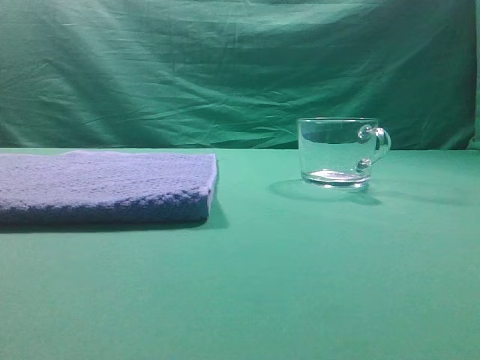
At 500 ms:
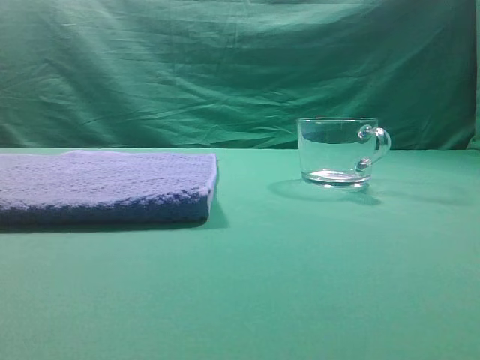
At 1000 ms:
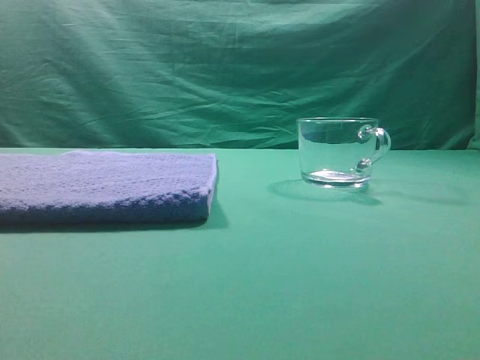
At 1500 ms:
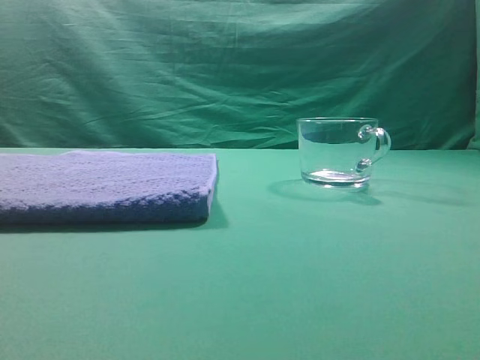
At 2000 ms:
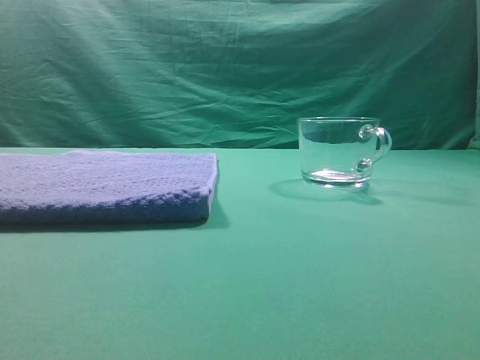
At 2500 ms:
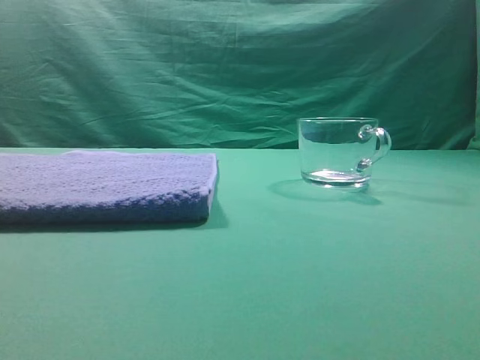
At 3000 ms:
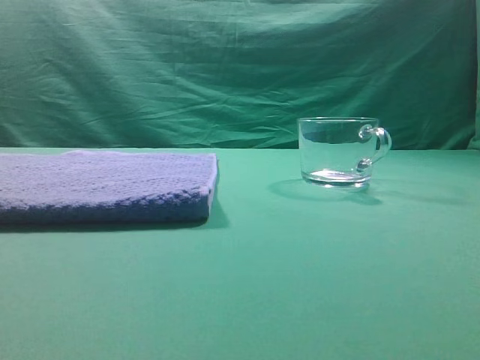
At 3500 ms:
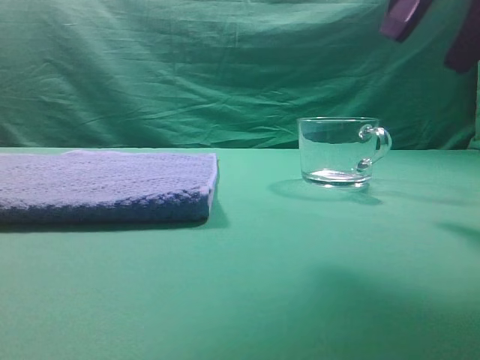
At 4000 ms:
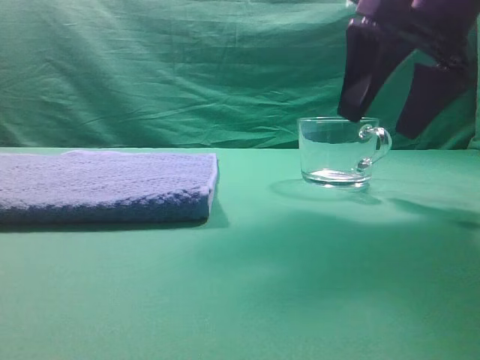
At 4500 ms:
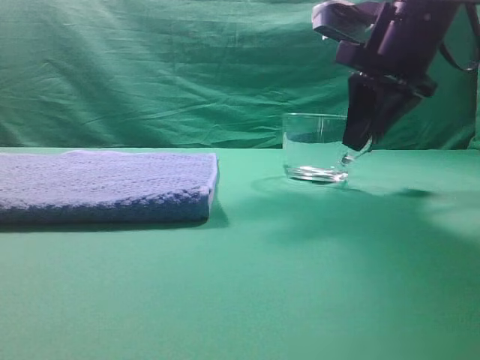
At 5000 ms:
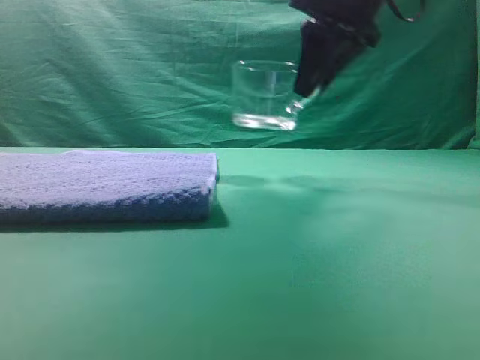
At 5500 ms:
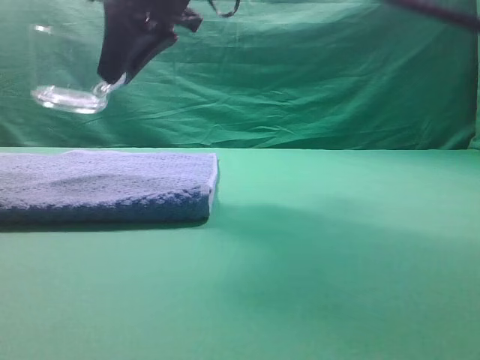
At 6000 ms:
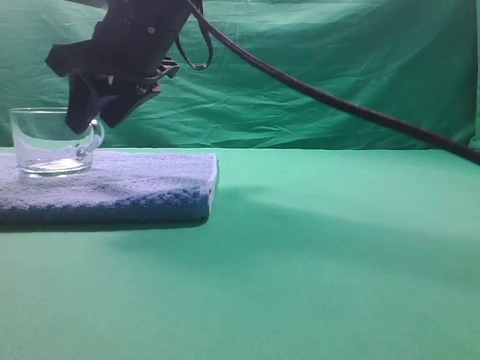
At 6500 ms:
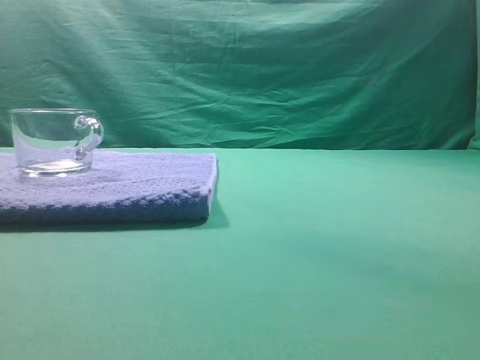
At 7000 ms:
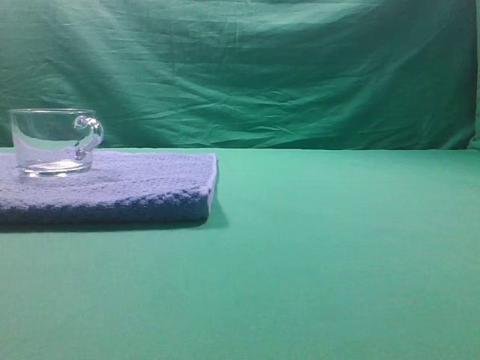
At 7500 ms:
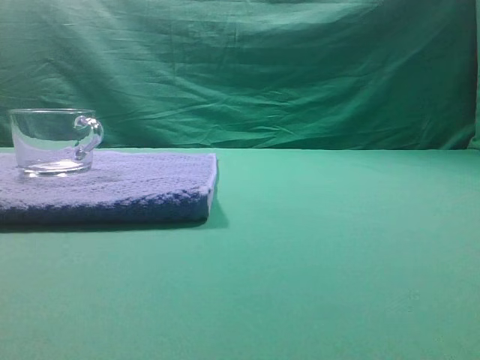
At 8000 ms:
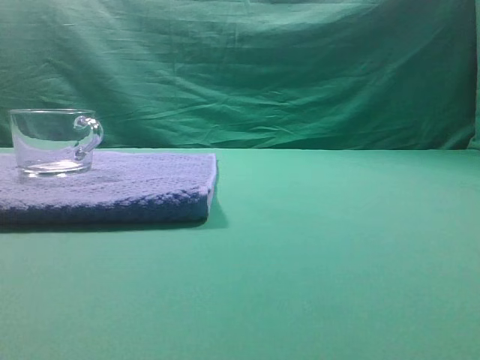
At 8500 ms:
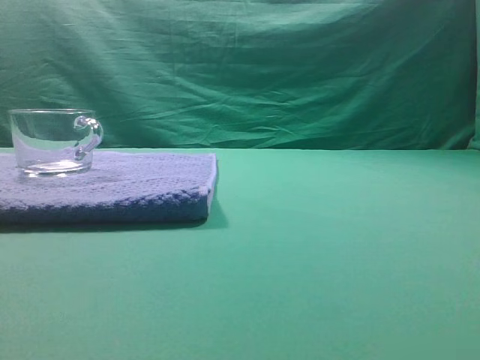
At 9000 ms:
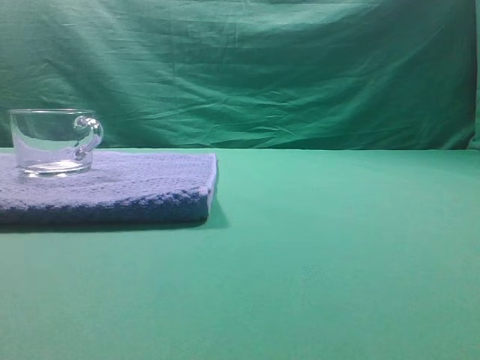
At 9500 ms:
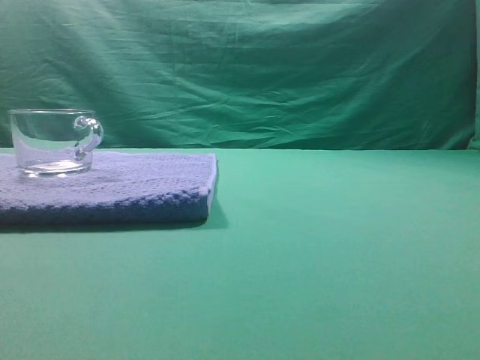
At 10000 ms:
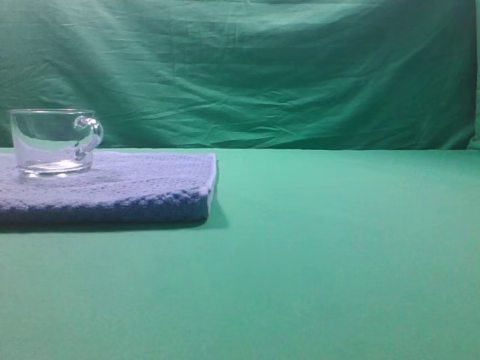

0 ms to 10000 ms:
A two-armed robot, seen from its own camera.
Task of the whole recording: grasp the transparent glass cup and place it within the blue towel.
Step, 0 ms to 4500 ms: Grasp the transparent glass cup.
Step, 5000 ms to 6000 ms: Place the glass cup on the blue zone.

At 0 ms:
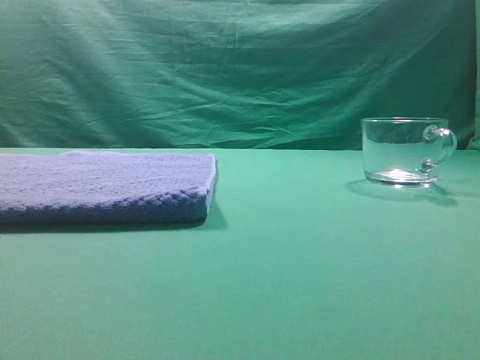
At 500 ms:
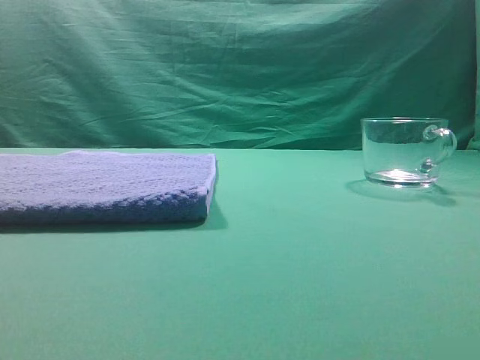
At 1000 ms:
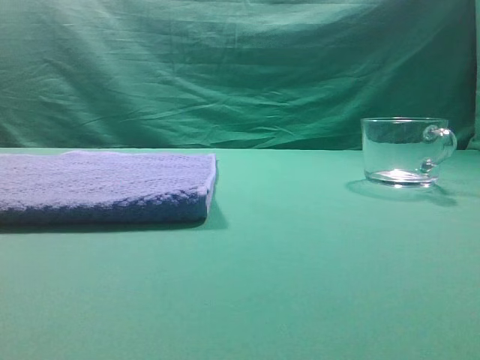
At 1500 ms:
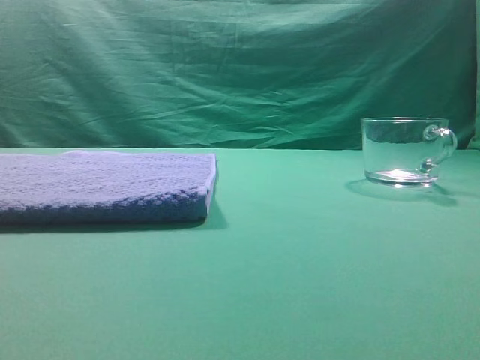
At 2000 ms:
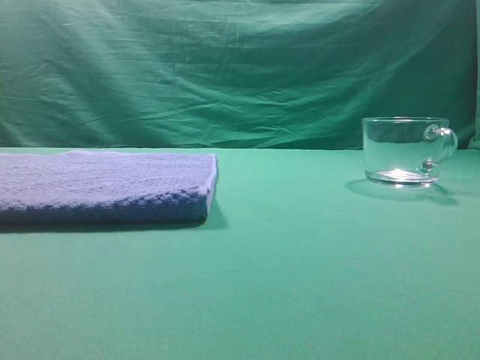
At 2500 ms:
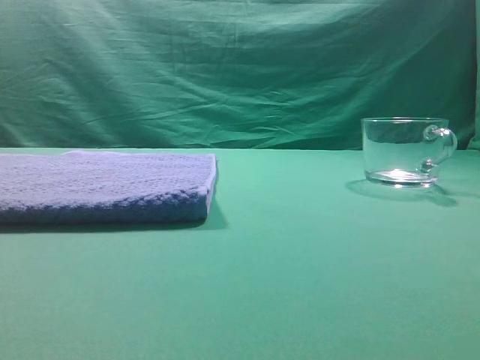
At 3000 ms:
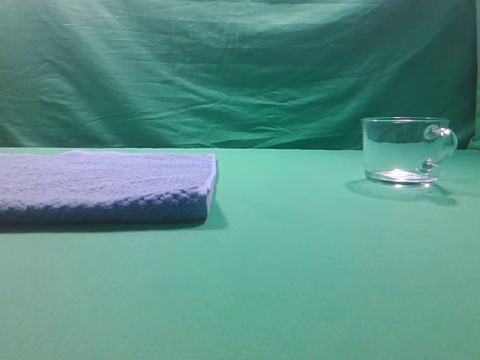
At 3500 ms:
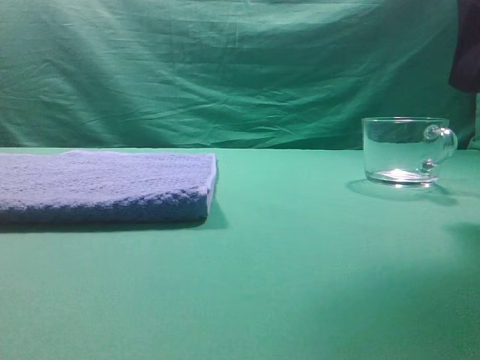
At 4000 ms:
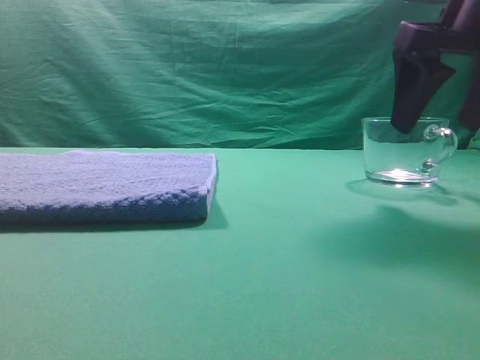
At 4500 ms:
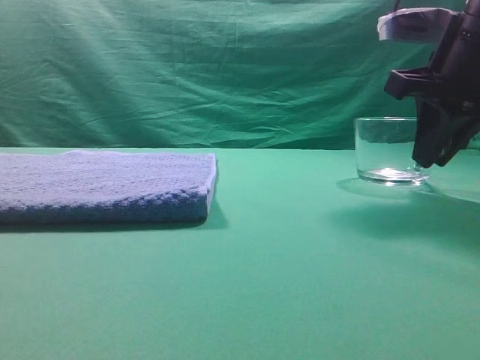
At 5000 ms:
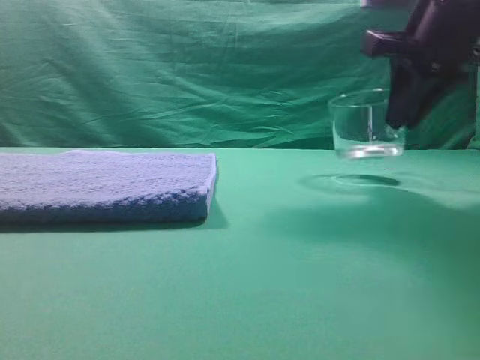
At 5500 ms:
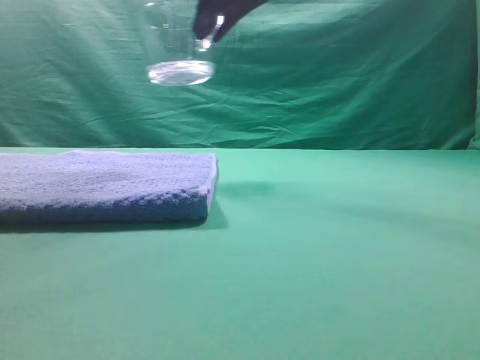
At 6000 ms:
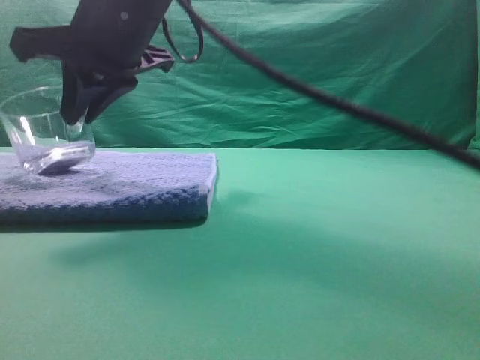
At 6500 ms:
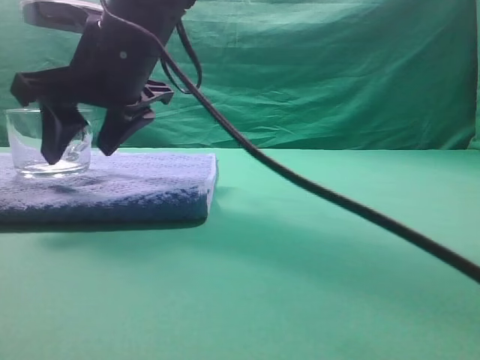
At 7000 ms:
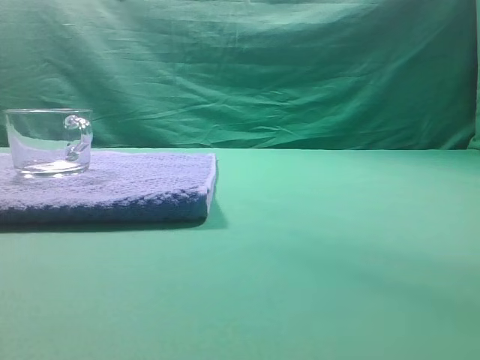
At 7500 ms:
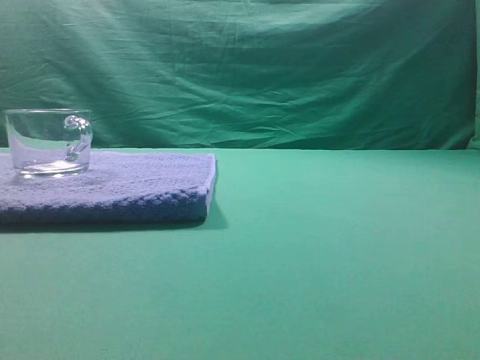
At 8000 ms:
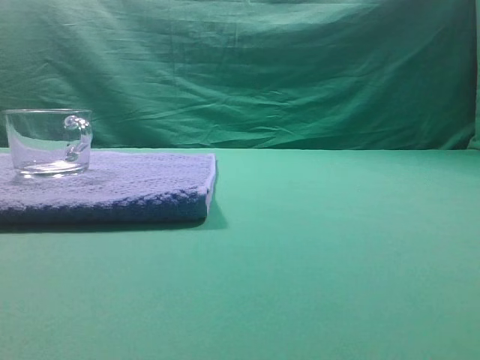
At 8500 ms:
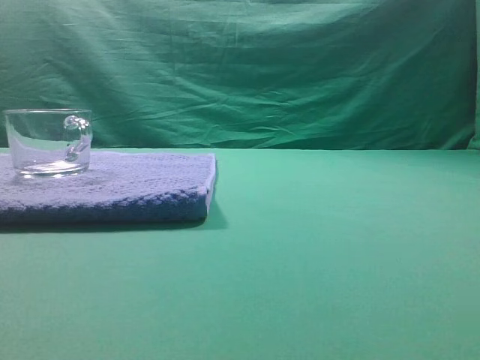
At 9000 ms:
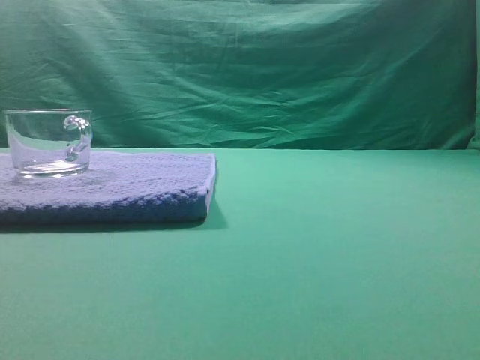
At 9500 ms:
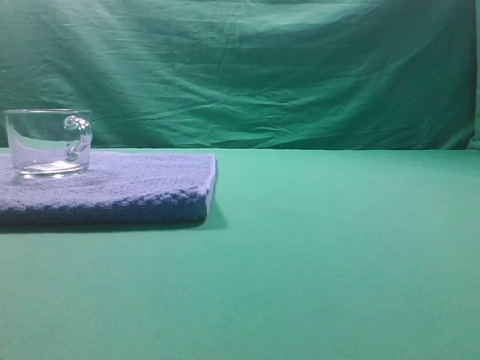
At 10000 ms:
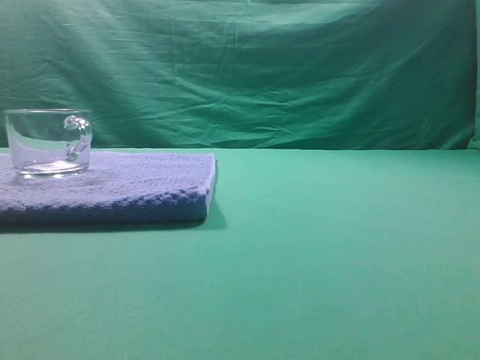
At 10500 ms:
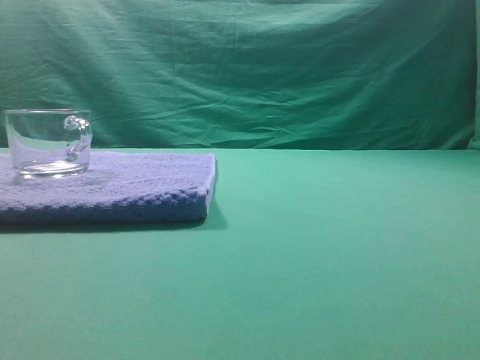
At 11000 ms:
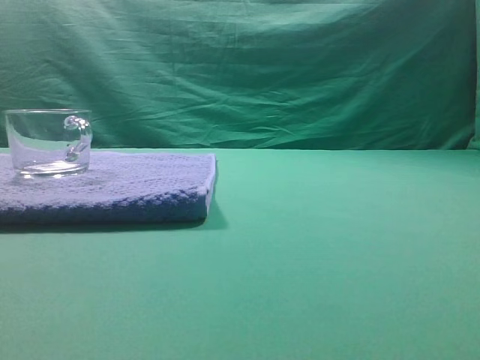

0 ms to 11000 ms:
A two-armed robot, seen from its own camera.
Task of the whole recording: grasp the transparent glass cup and place it within the blue towel.
Step, 0 ms to 4500 ms: Grasp the transparent glass cup.
Step, 5500 ms to 6500 ms: Place the glass cup on the blue zone.
